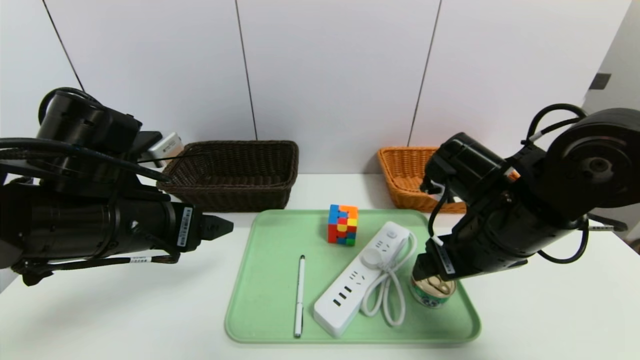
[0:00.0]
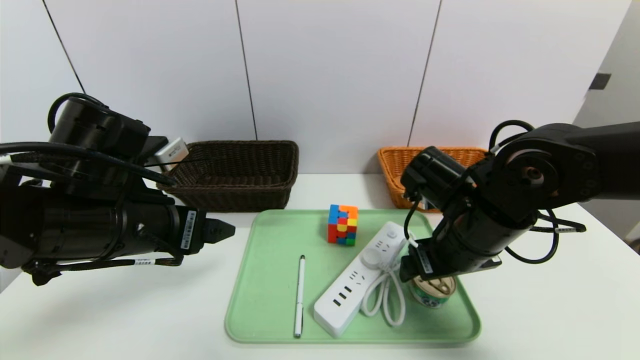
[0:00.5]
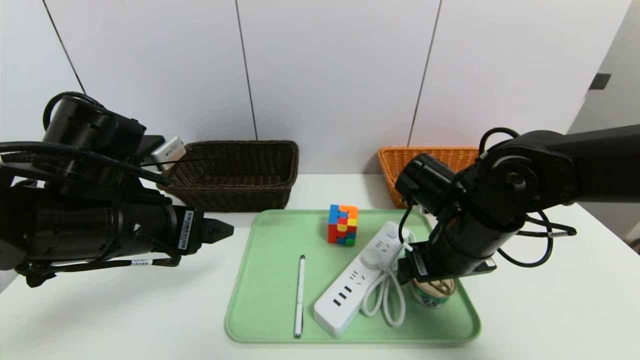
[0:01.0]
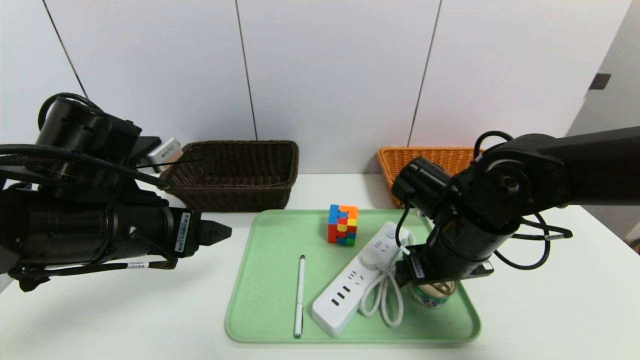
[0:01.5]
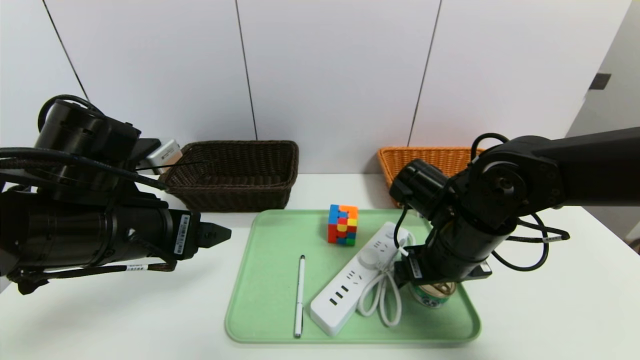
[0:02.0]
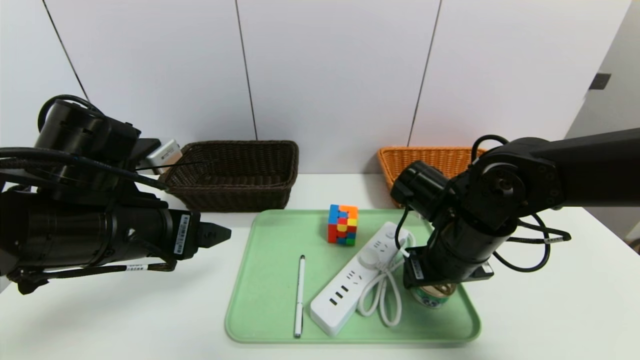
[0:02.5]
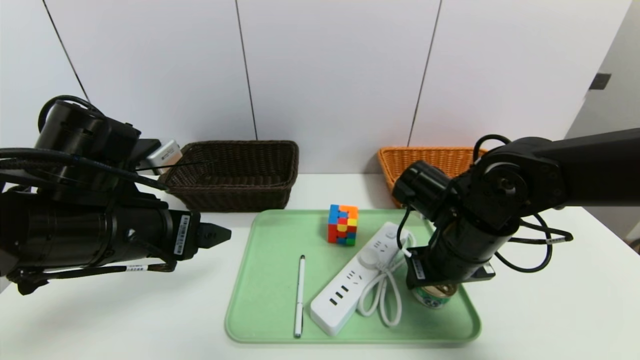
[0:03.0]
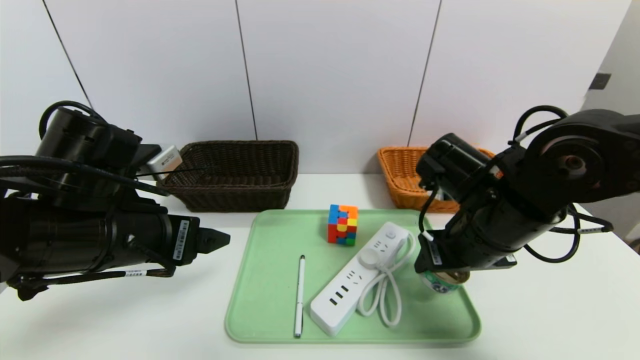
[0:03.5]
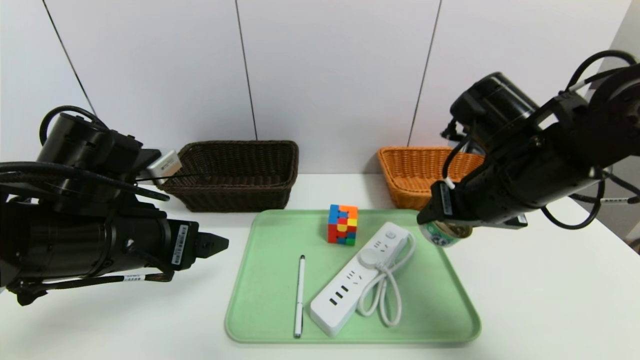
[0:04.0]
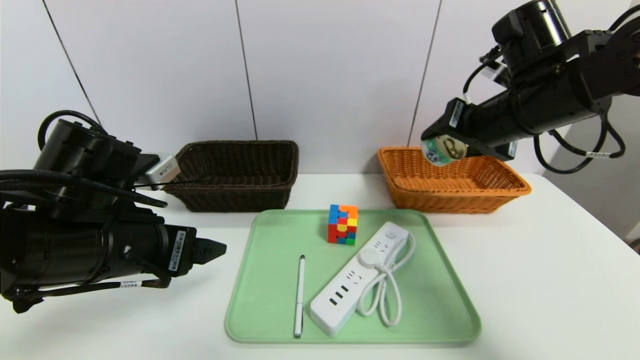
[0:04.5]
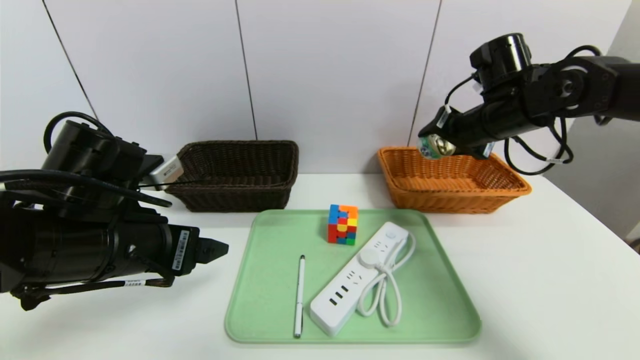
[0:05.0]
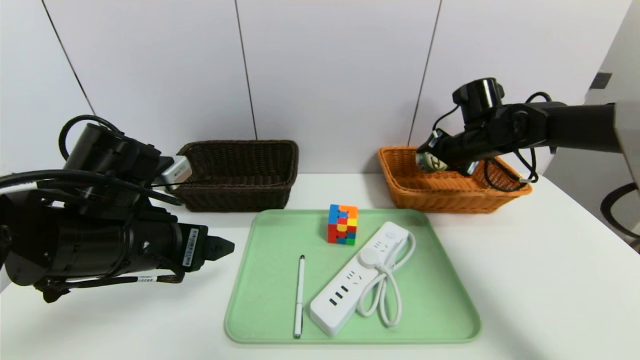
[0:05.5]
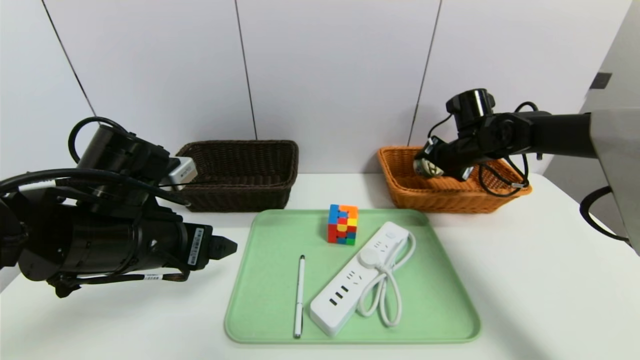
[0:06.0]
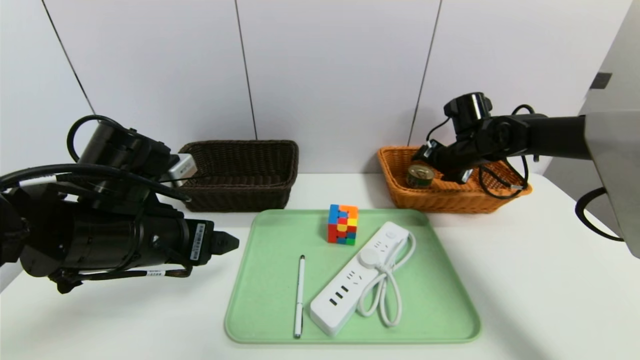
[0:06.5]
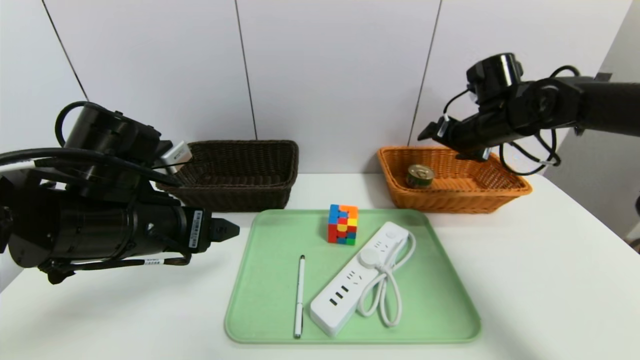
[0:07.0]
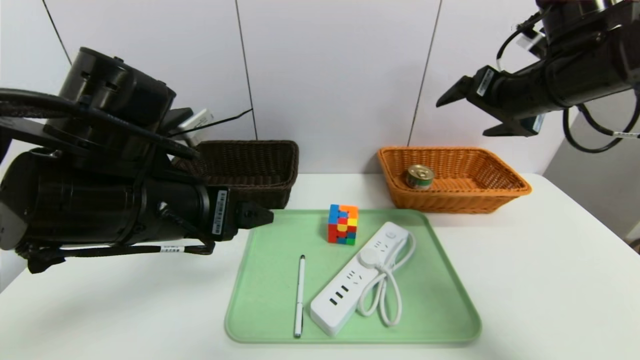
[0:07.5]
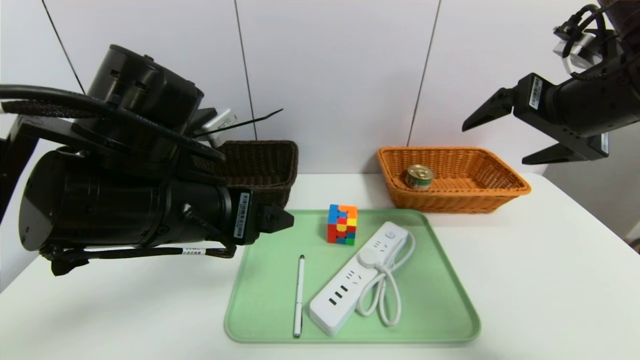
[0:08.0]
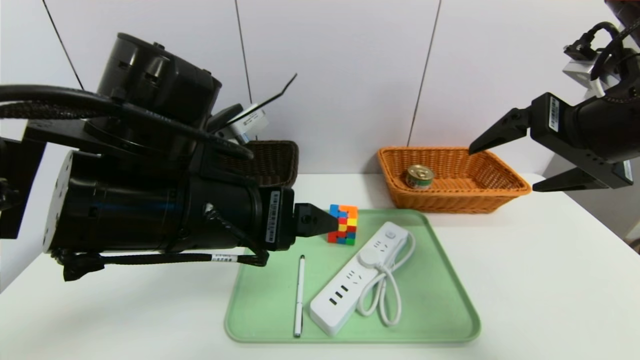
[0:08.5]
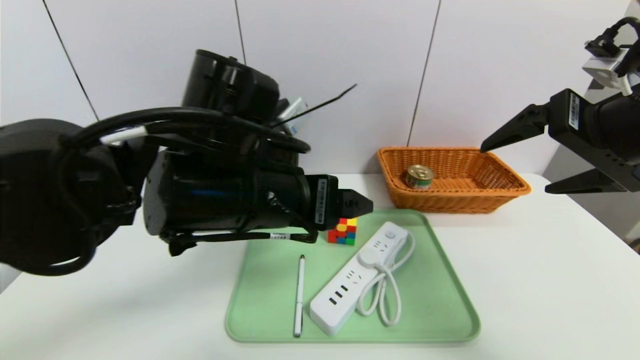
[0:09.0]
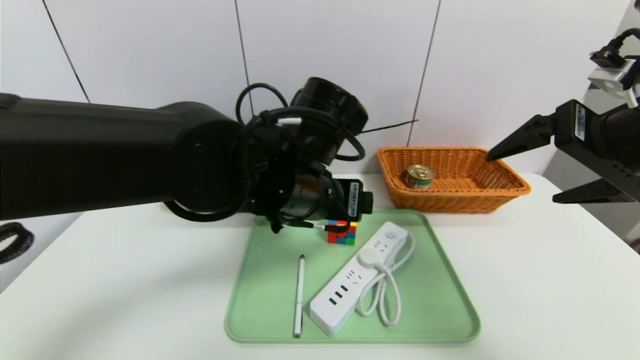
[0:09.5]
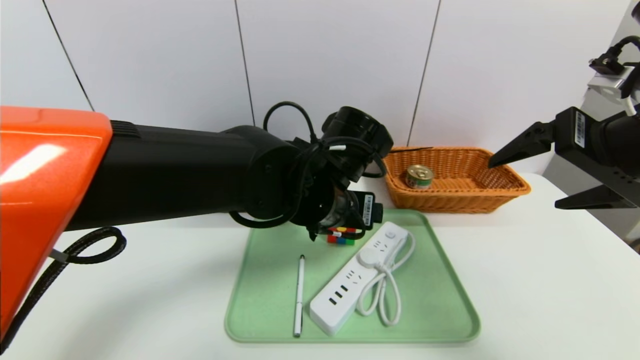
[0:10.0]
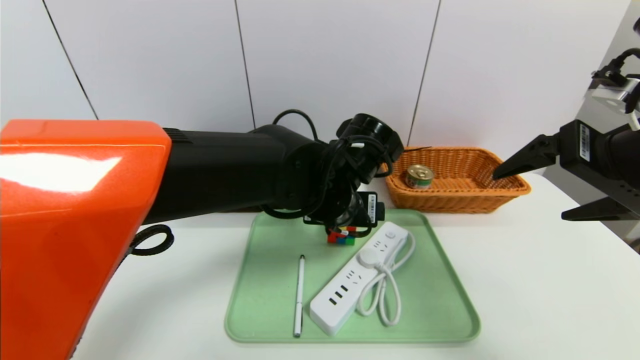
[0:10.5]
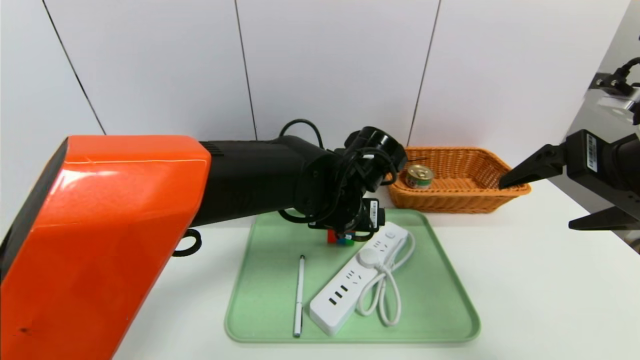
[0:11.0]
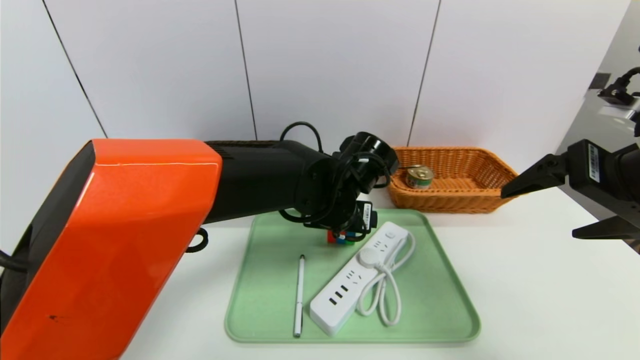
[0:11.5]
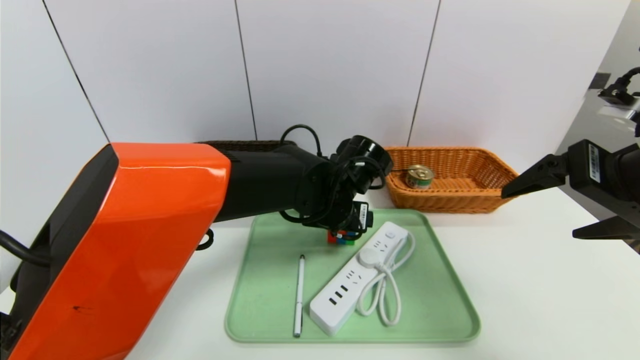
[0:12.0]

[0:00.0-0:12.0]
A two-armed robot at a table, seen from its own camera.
Task of the whole recording: place the food in the right basket with the right gripper, and place the non food items in the left basket with the left gripper.
Step, 0:00.0 to 0:06.5: Grasp the can and put it in the right basket.
0:00.0 to 0:02.0: The right gripper shifts by about 5 cm.
0:02.0 to 0:04.0: The right gripper goes roughly 10 cm upward, and closes up.
0:04.0 to 0:06.0: The right gripper moves forward, roughly 20 cm.
0:06.0 to 0:08.0: The right gripper goes about 25 cm backward and upward, and opens up, while the left gripper goes approximately 10 cm upward and to the right.
0:08.0 to 0:10.0: The left gripper is displaced to the right and forward by roughly 15 cm.
0:10.0 to 0:12.0: The left gripper moves roughly 5 cm.

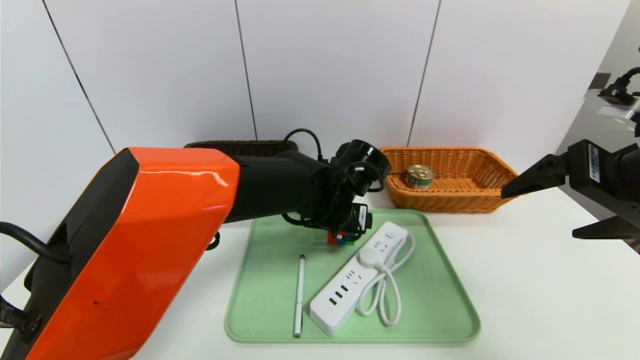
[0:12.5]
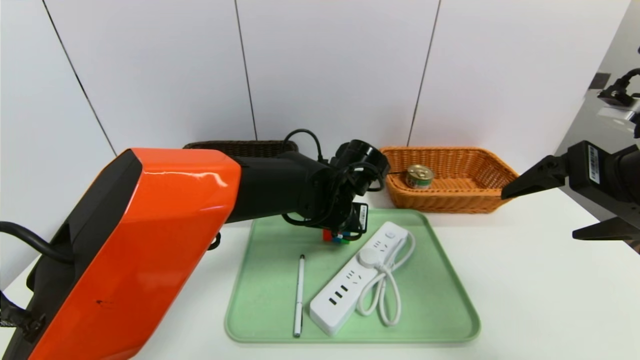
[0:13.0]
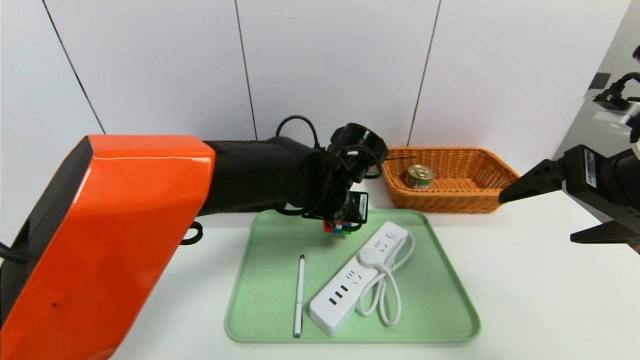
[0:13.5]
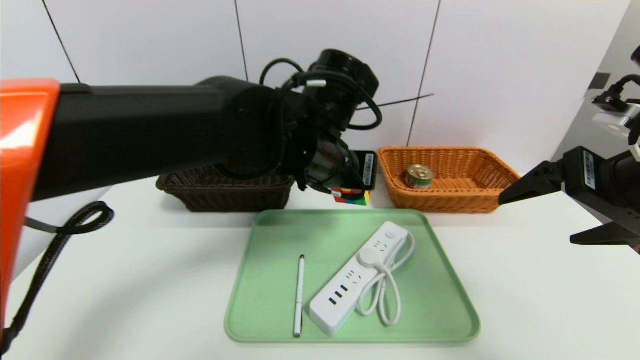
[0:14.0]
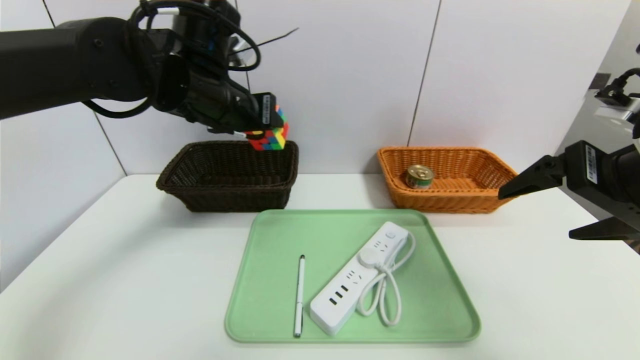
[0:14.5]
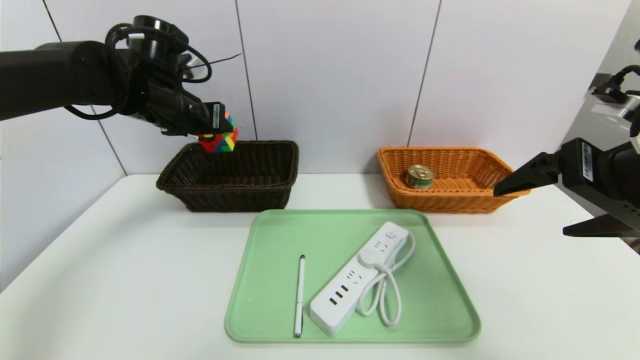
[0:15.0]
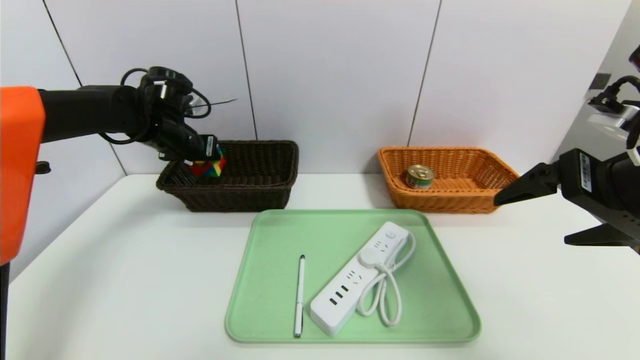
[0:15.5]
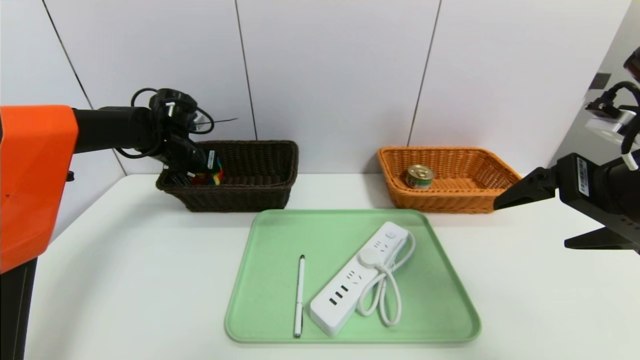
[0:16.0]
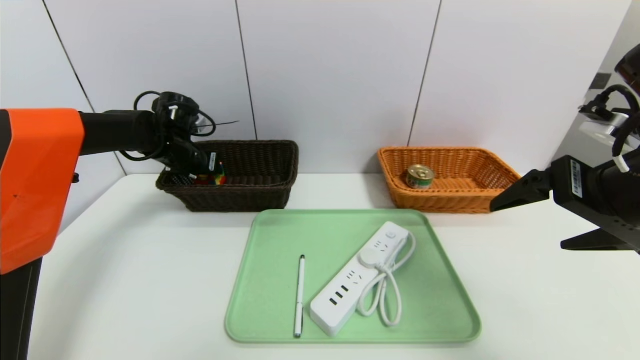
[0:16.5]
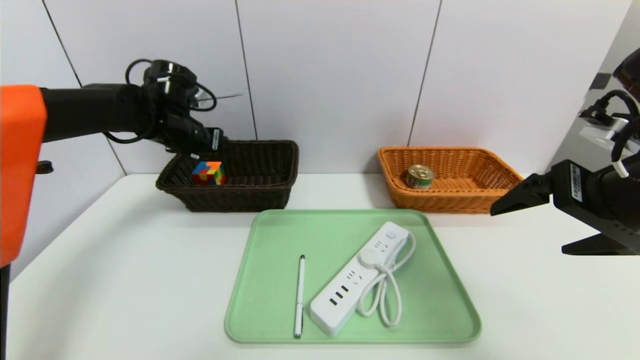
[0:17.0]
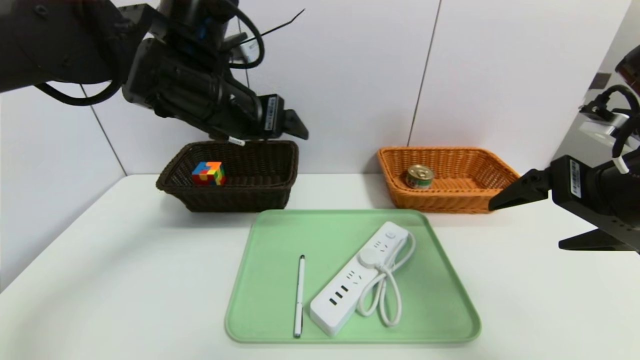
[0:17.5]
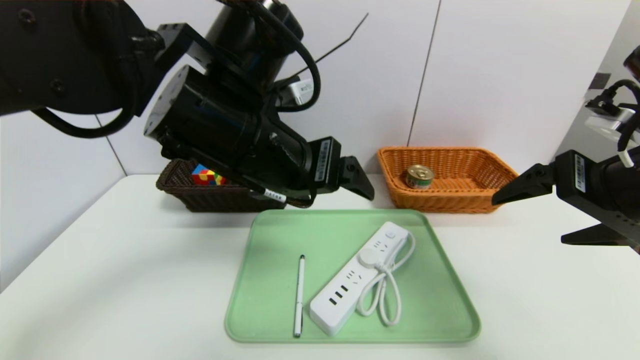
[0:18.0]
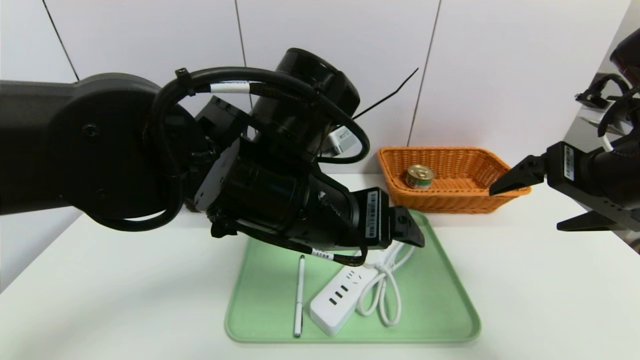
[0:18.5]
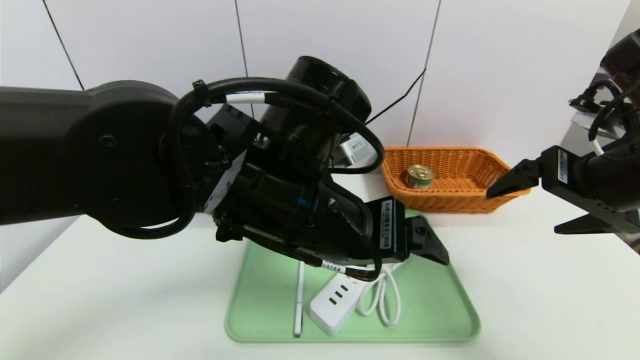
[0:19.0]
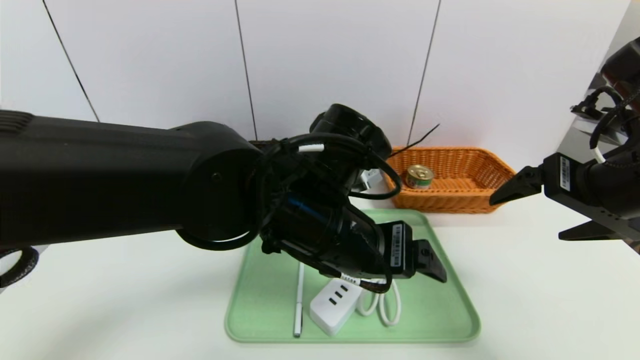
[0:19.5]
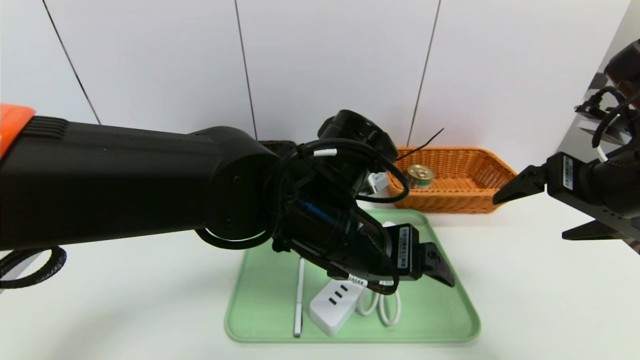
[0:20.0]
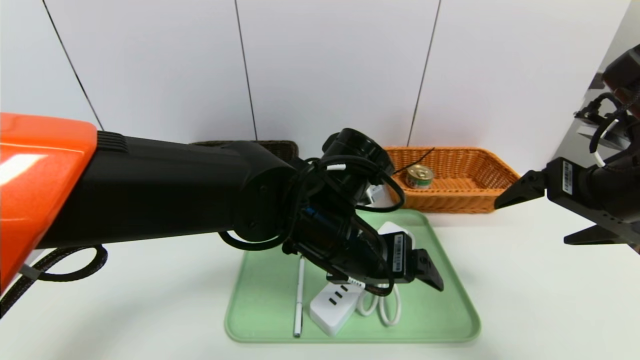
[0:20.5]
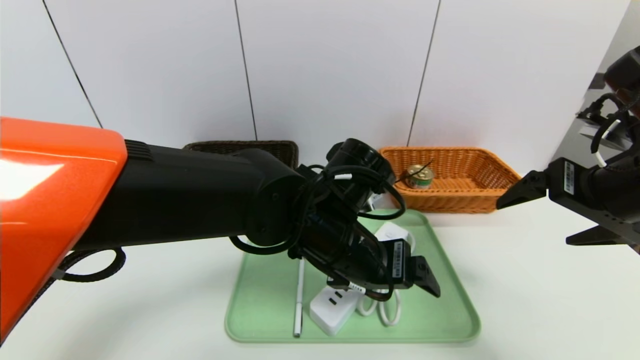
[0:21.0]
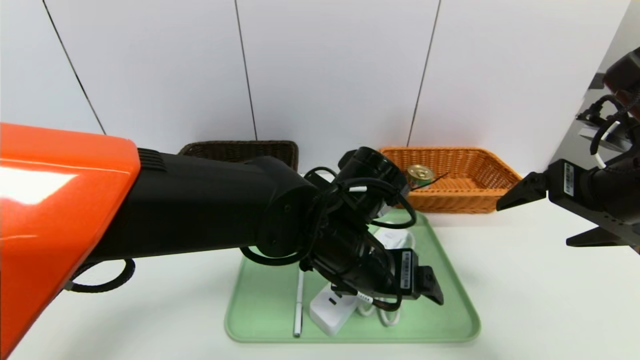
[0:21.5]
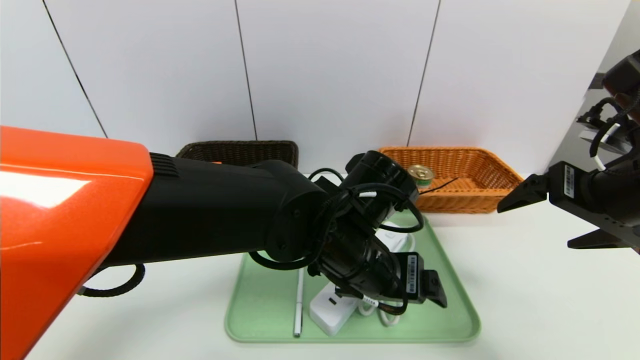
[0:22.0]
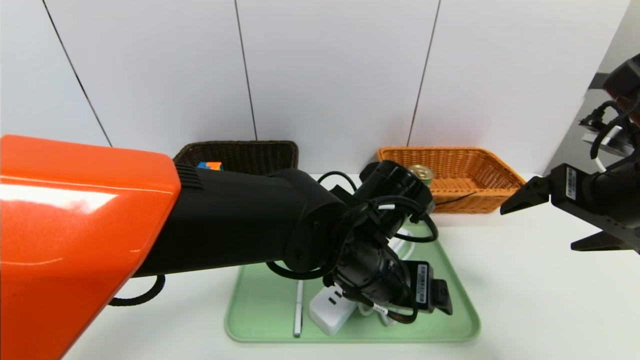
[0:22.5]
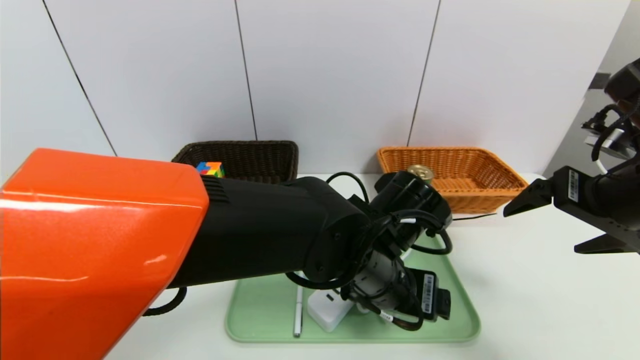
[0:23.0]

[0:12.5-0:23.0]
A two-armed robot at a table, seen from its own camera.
Task of the whole recording: place the food in the right basket with the right gripper, and place the non food items in the left basket with the left gripper.
Step, 0:12.5 to 0:16.5: Grasp the rubiks cube and put it in the left basket.
0:12.5 to 0:14.5: The left gripper moves to the left and upward, about 25 cm, and closes up.
0:14.5 to 0:16.5: The left gripper moves downward, to the left and forward, some 20 cm.
0:16.5 to 0:19.0: The left gripper heads backward and to the right, covering roughly 35 cm.
0:19.0 to 0:21.0: The left gripper shifts roughly 5 cm downward.
0:21.0 to 0:23.0: The left gripper moves approximately 5 cm.
